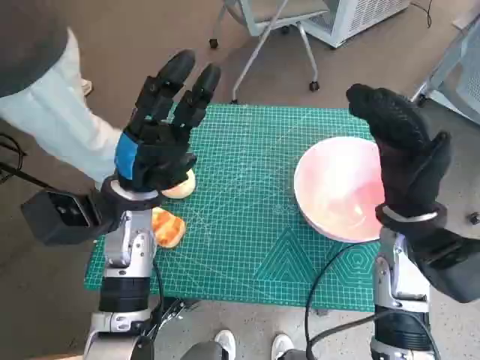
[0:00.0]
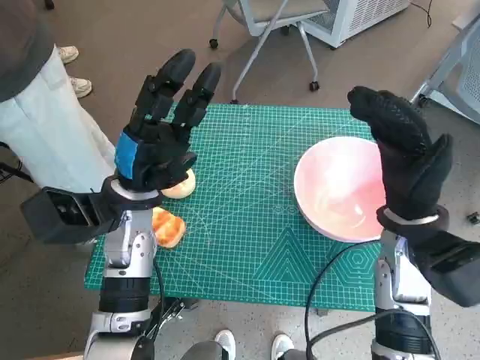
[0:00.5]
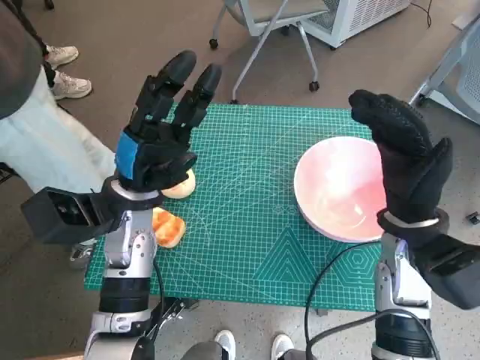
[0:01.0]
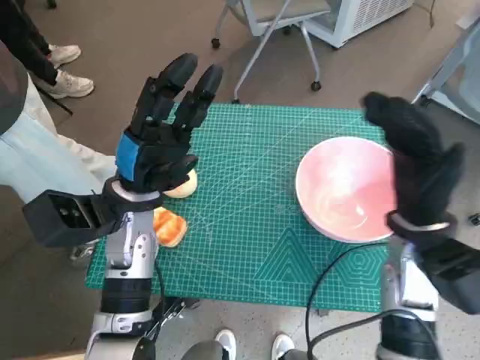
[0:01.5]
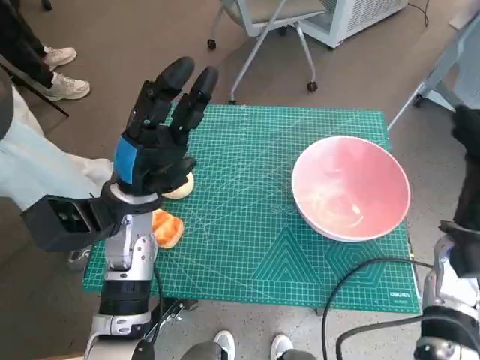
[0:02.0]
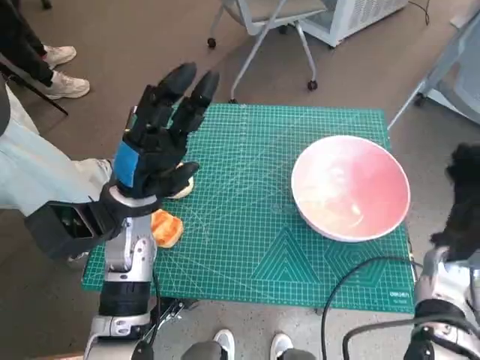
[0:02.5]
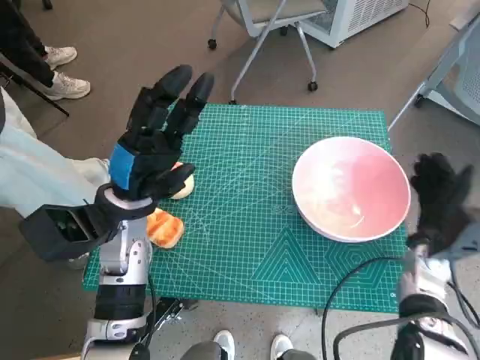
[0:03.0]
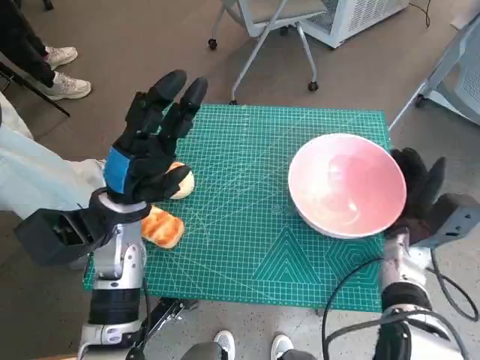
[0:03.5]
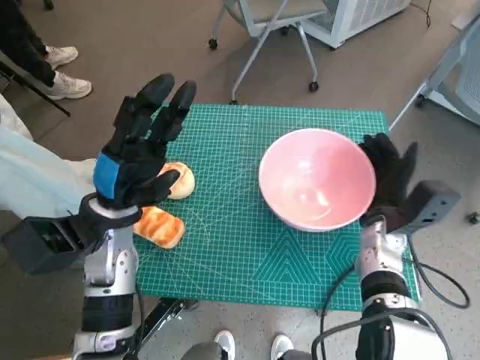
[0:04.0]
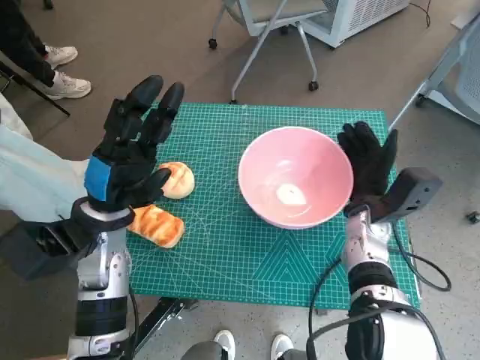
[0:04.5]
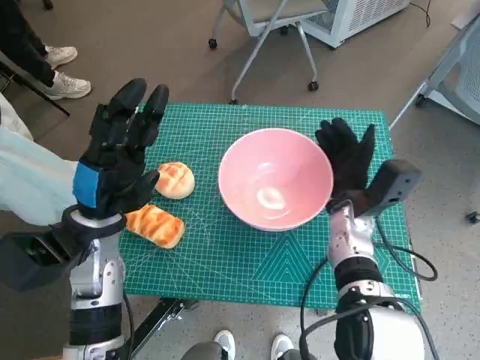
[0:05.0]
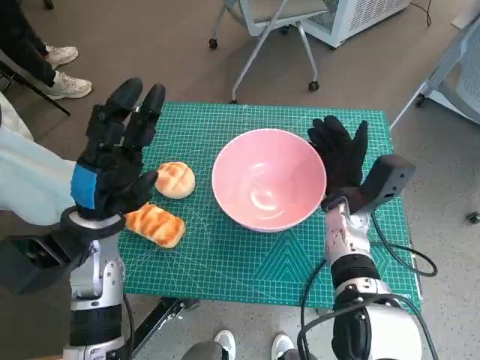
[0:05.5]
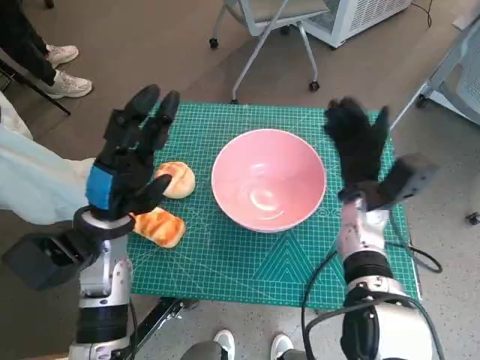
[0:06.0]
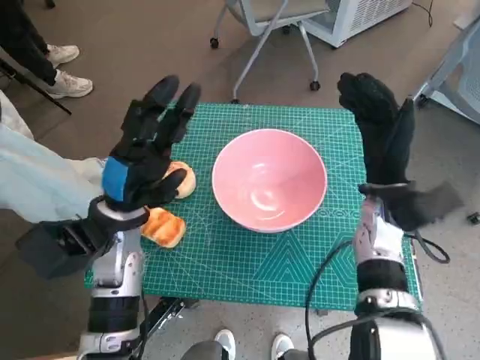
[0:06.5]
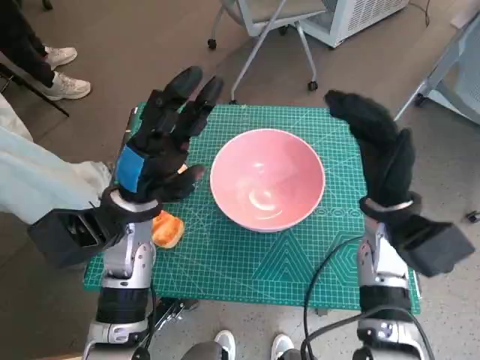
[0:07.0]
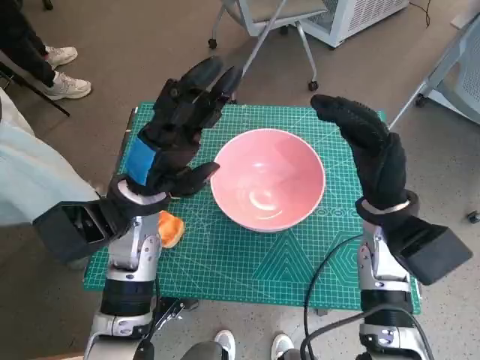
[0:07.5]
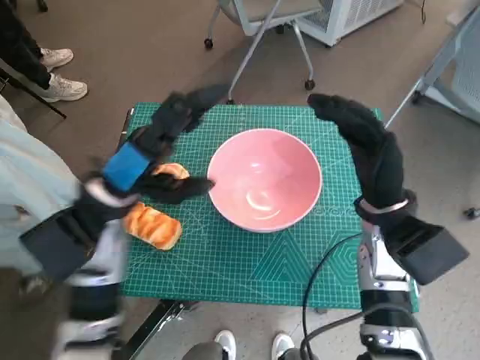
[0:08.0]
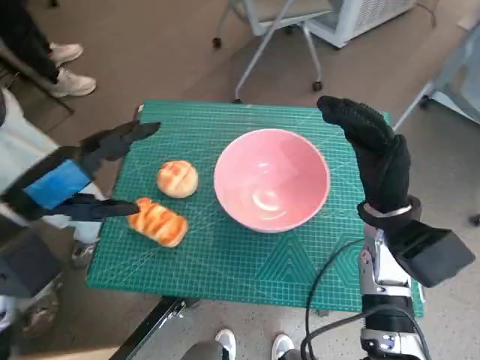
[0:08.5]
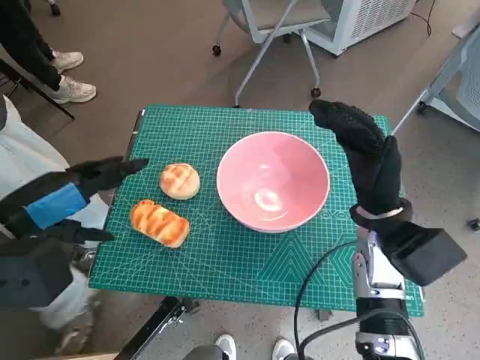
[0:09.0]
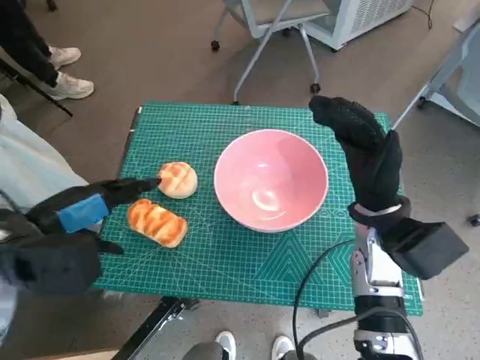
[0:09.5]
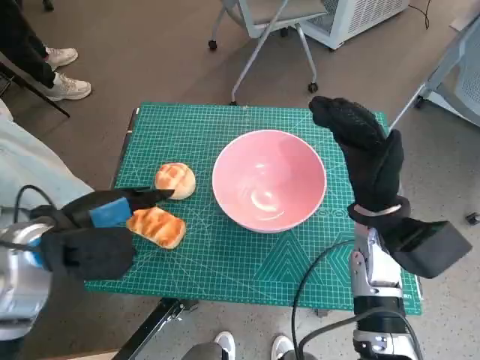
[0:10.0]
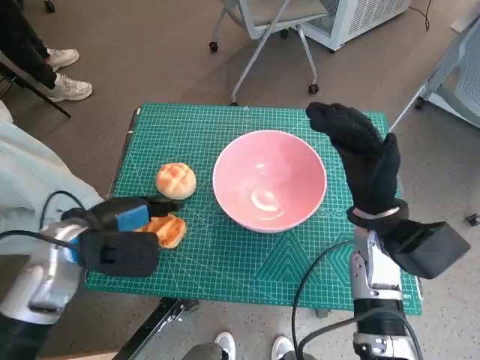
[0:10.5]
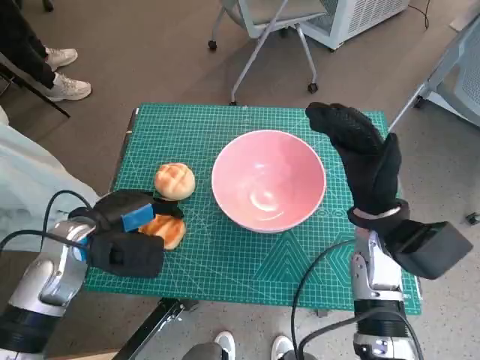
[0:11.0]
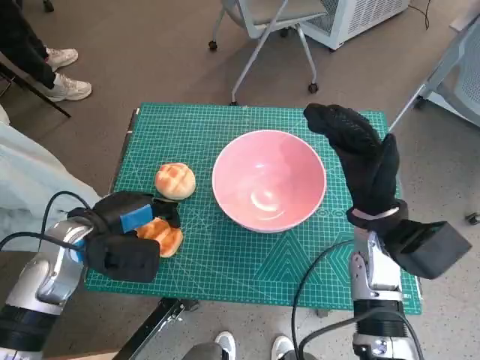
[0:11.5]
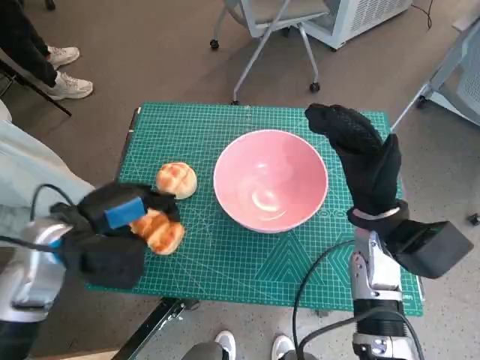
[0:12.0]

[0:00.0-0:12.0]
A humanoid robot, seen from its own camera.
Task of the whole recording: Push the bowl into the center of the table and put the bread into the bowl.
Step, 0:00.0 to 0:06.0: Move the pink bowl to the center of table with right hand.
Step, 0:06.5 to 0:11.0: Grasp the long bread with left hand.
0:02.0 to 0:04.0: The right hand goes some 10 cm to the left and downward.
0:04.0 to 0:06.0: The right hand changes place by some 5 cm.
0:06.0 to 0:08.0: The right hand goes roughly 5 cm upward, while the left hand ends up approximately 5 cm from where it was.
0:08.0 to 0:10.0: The left hand moves to the left, about 5 cm.
0:10.0 to 0:12.0: The hands stay close to where they were, moving slightly.

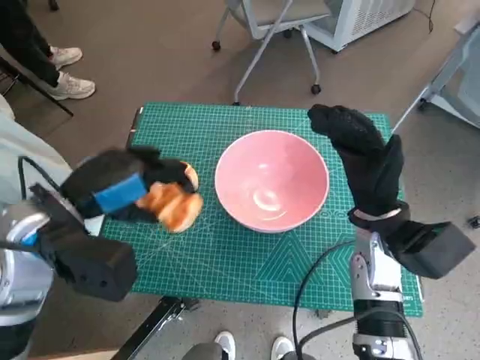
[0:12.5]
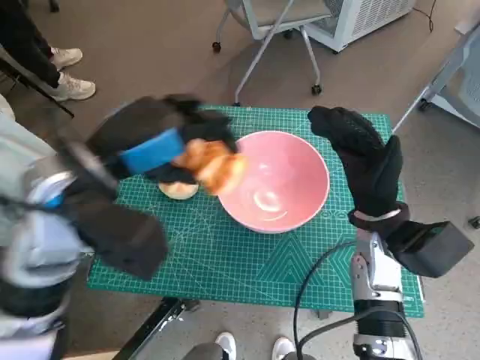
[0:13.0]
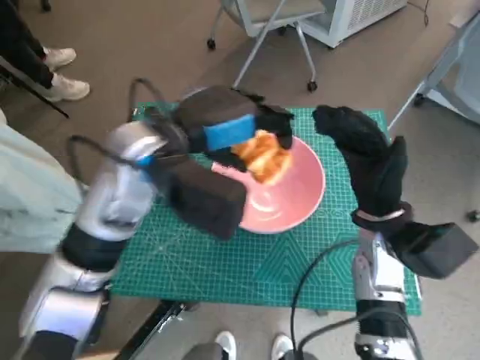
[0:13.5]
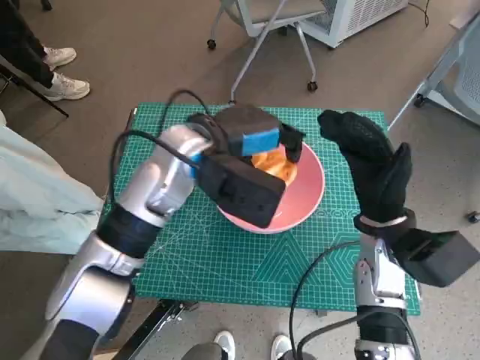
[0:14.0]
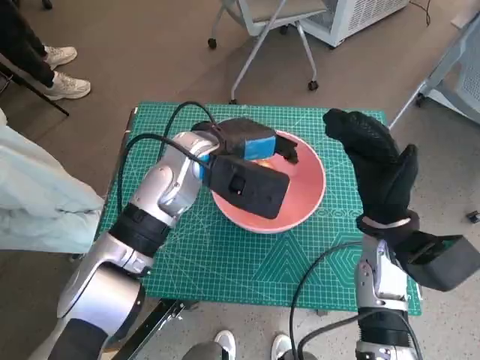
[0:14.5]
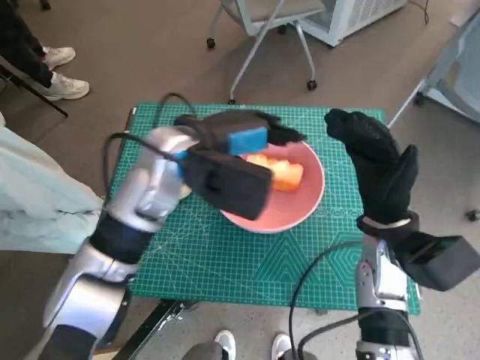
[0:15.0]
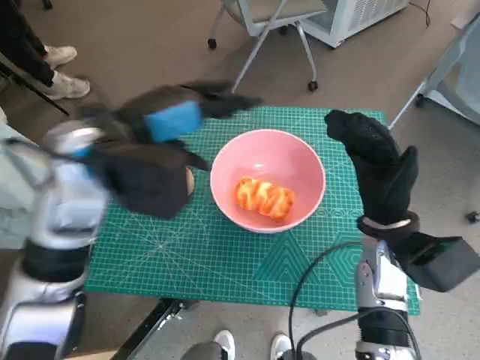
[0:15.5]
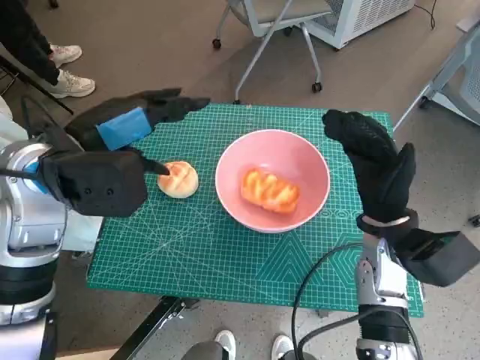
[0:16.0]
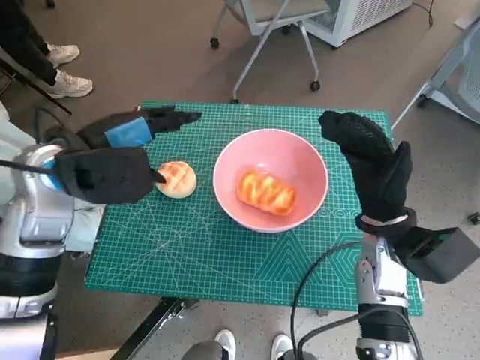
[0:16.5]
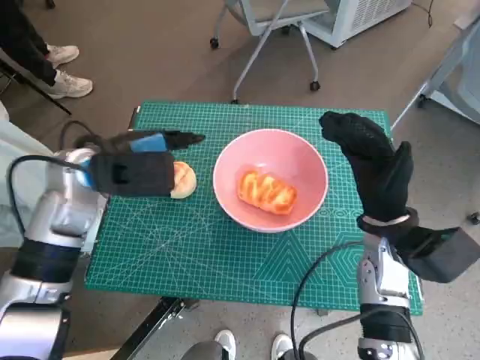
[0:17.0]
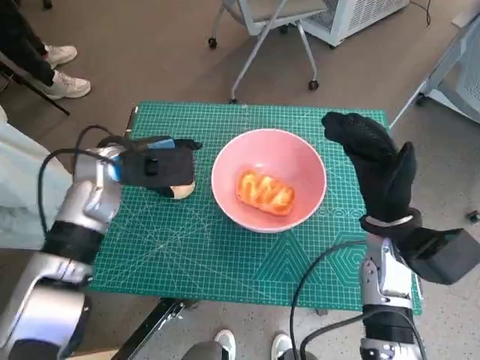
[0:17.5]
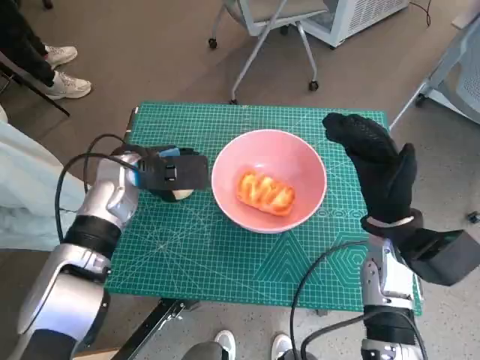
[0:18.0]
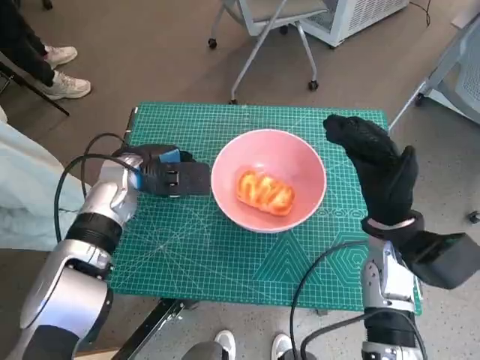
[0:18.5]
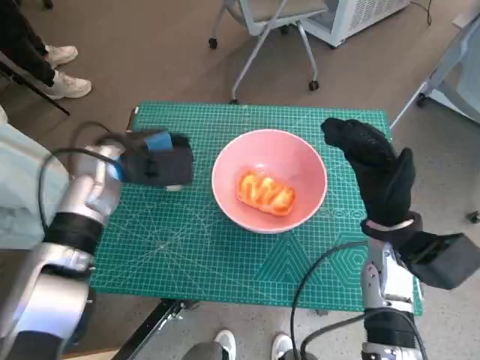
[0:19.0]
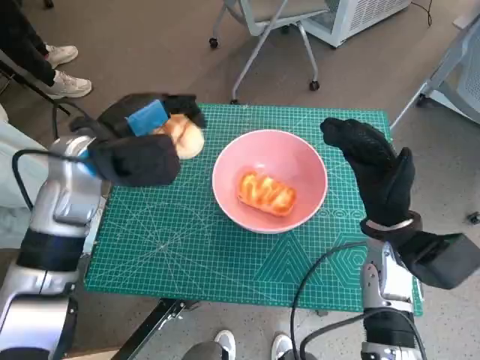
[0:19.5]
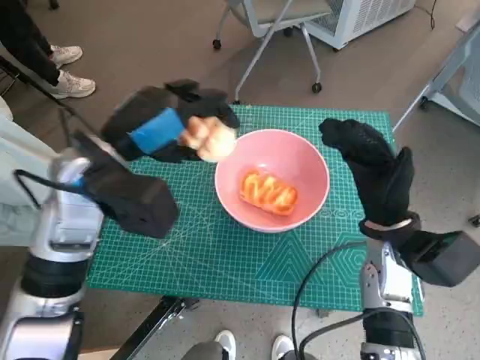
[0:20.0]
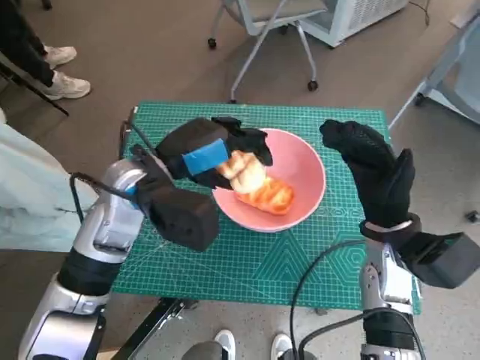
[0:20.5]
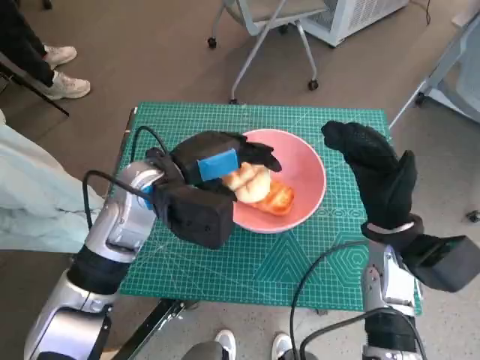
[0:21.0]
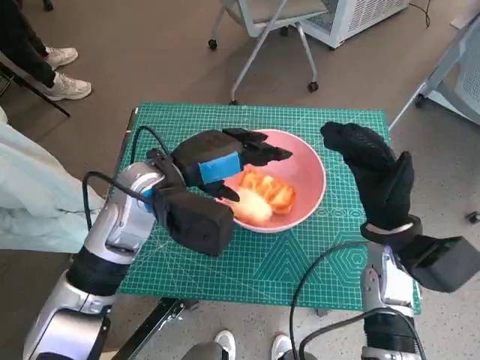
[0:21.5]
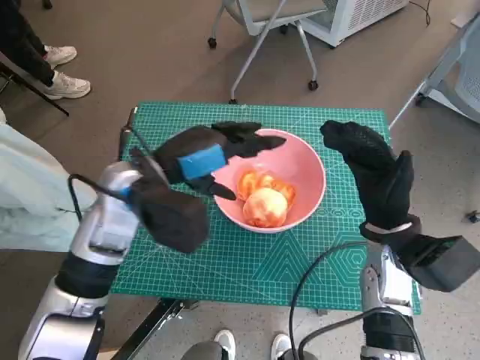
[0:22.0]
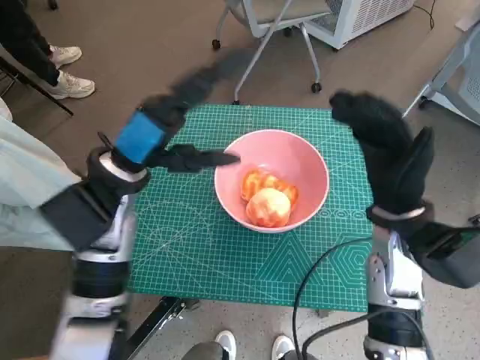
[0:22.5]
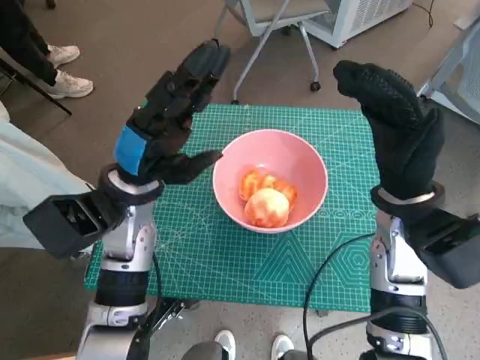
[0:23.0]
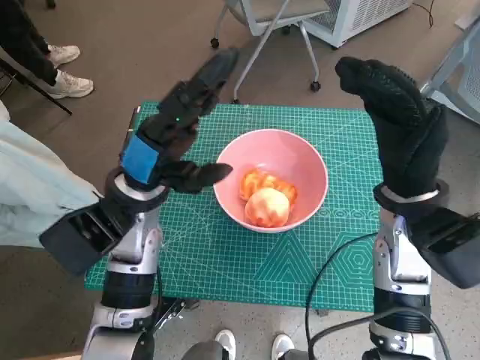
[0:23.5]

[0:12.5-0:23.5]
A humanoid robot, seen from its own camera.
Task of the whole recording: Push the bowl into the center of the table and put the bread into the bowl.
Step, 0:12.5 to 0:14.5: Place the long bread in pink bowl with left hand.
Step, 0:15.0 to 0:18.5: Grasp the round bread with left hand.
Step, 0:19.0 to 0:21.5: Place the round bread in pink bowl with left hand.
0:12.5 to 0:14.5: The left hand shifts about 20 cm to the right and forward.
0:14.5 to 0:16.0: The left hand goes about 15 cm to the left, backward and upward.
0:16.0 to 0:18.0: The left hand goes about 15 cm downward and forward.
0:18.0 to 0:20.0: The left hand goes some 10 cm upward and backward.
0:20.0 to 0:21.5: The left hand shifts about 5 cm to the right.
0:21.5 to 0:23.5: The right hand travels upward by about 5 cm.

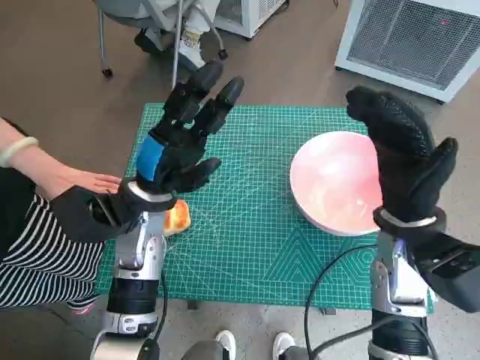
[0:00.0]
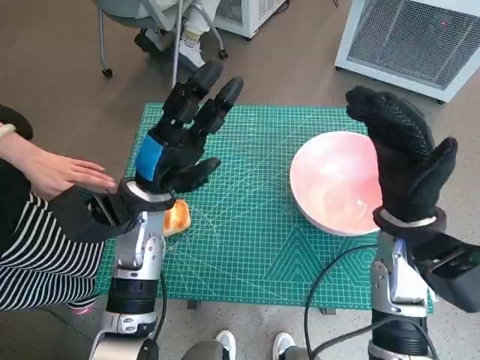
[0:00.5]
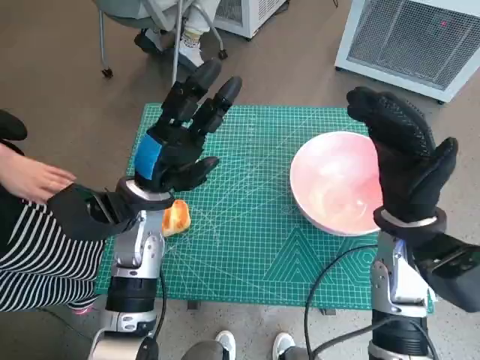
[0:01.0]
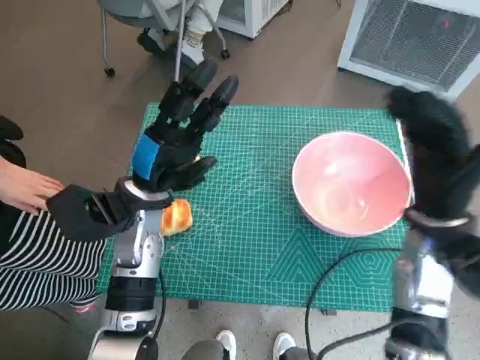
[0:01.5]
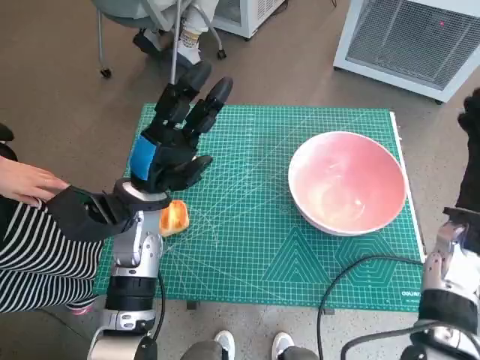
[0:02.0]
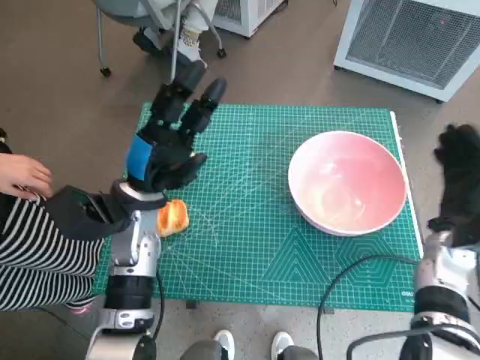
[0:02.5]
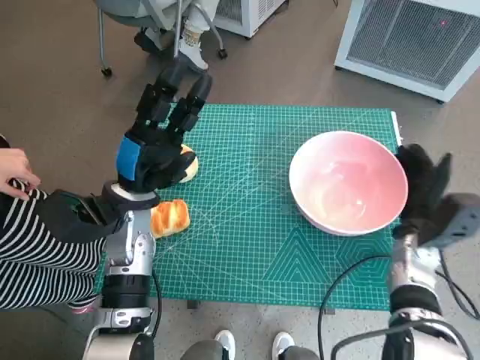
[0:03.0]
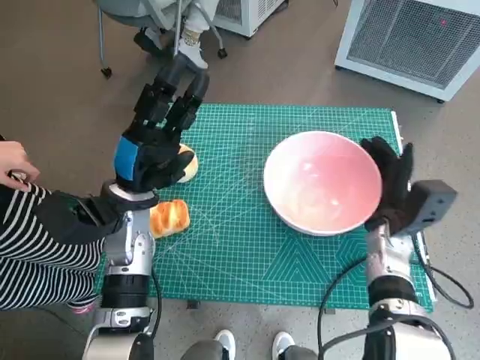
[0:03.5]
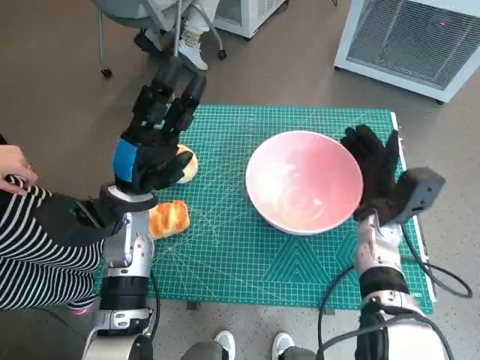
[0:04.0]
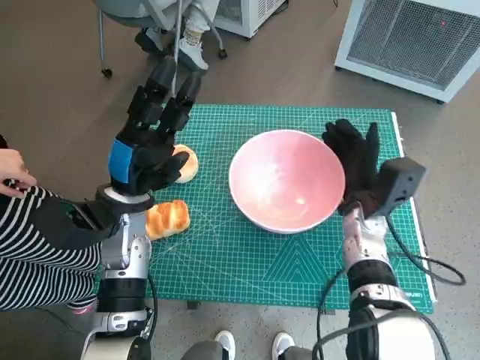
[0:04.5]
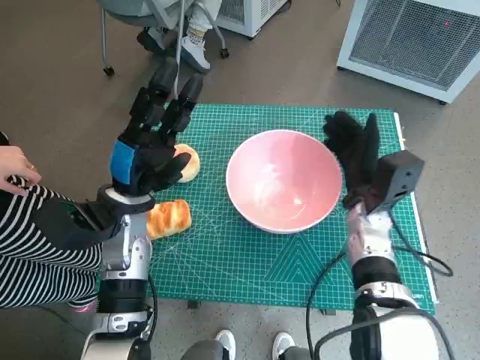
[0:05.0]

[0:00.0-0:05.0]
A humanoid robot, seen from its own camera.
Task of the whole recording: Push the bowl into the center of the table and put the bread into the bowl.
0:02.5 to 0:05.0: The right hand is displaced to the left by approximately 10 cm.
